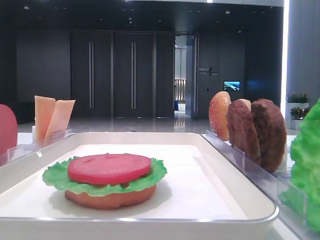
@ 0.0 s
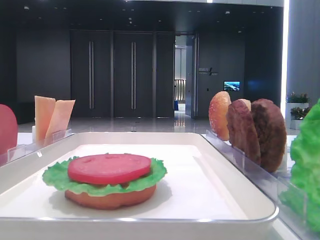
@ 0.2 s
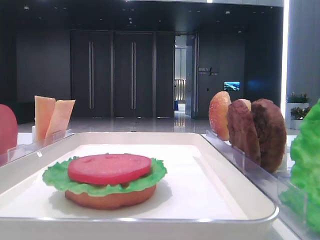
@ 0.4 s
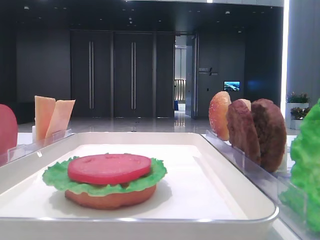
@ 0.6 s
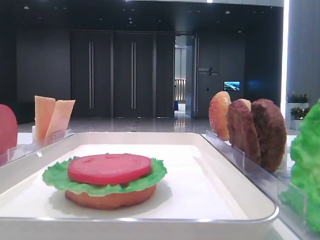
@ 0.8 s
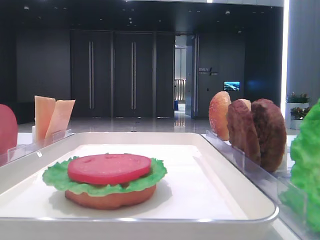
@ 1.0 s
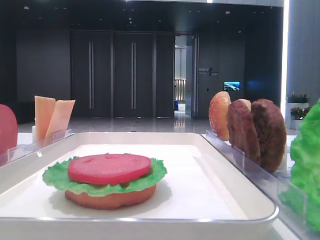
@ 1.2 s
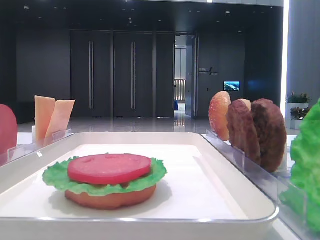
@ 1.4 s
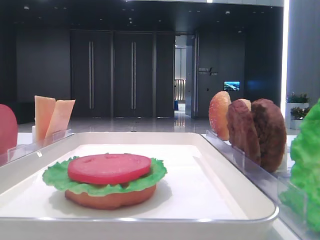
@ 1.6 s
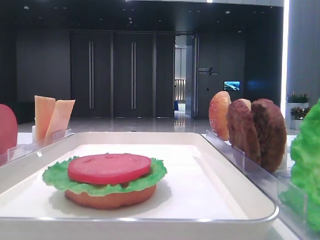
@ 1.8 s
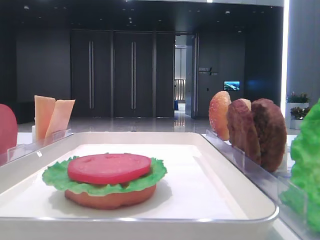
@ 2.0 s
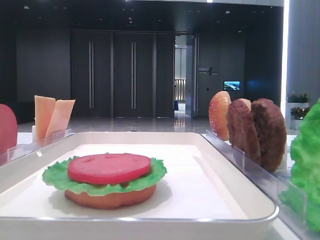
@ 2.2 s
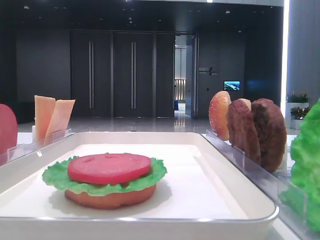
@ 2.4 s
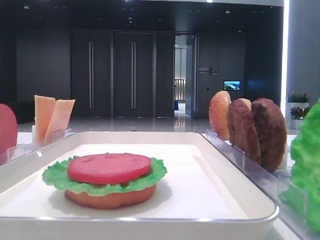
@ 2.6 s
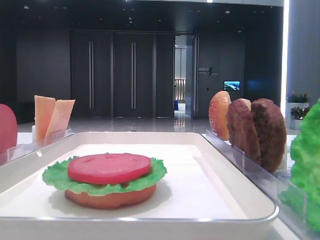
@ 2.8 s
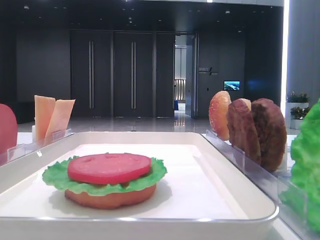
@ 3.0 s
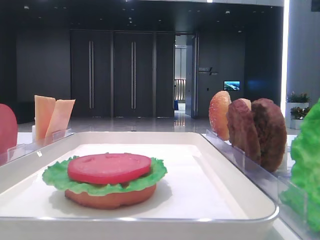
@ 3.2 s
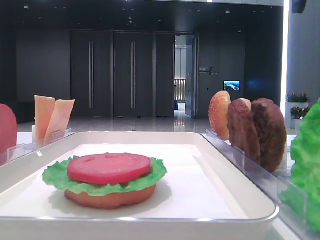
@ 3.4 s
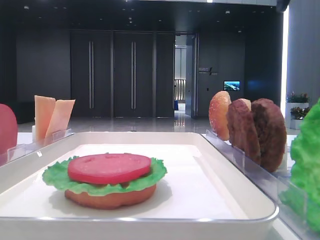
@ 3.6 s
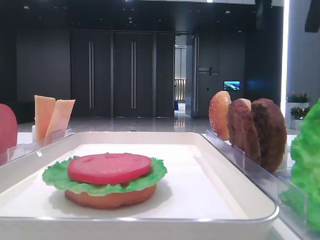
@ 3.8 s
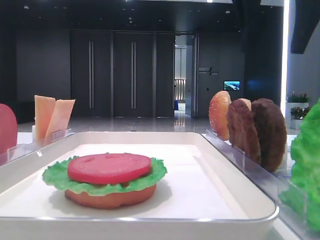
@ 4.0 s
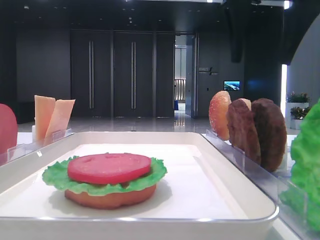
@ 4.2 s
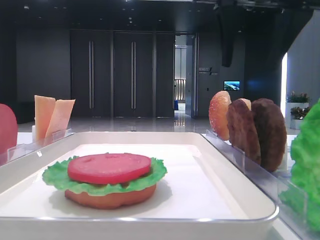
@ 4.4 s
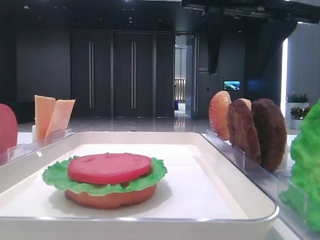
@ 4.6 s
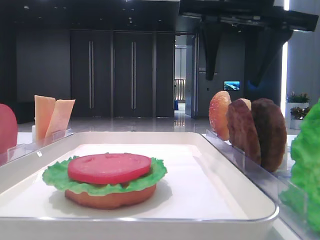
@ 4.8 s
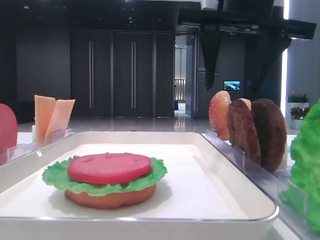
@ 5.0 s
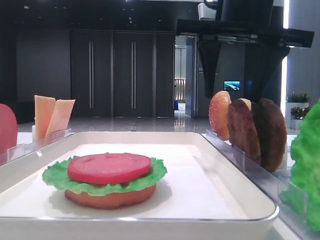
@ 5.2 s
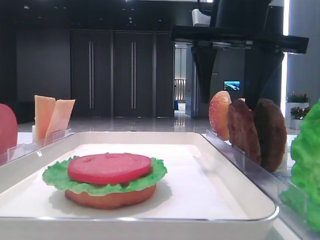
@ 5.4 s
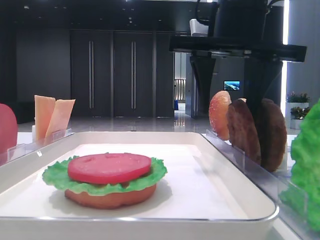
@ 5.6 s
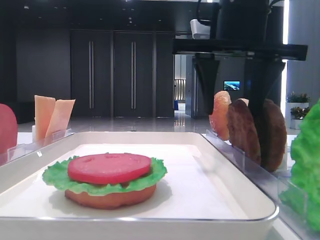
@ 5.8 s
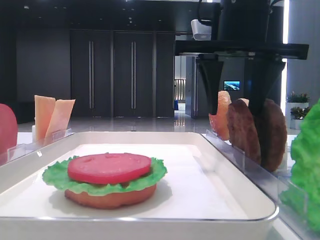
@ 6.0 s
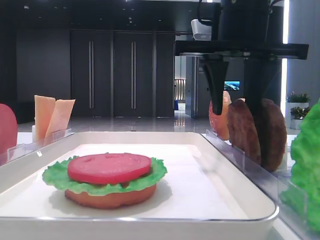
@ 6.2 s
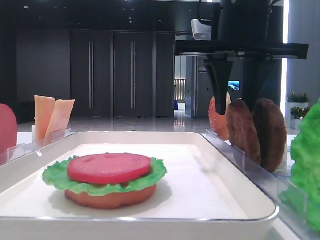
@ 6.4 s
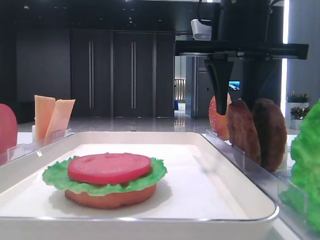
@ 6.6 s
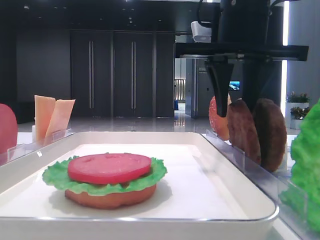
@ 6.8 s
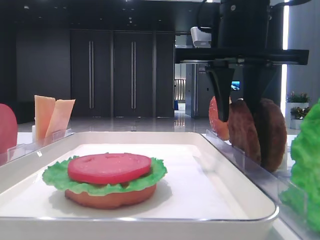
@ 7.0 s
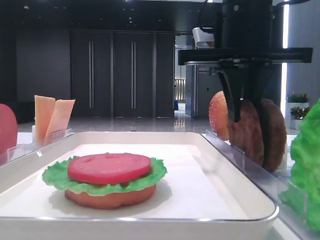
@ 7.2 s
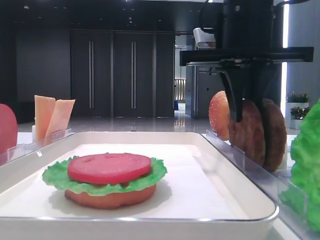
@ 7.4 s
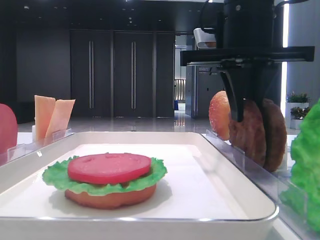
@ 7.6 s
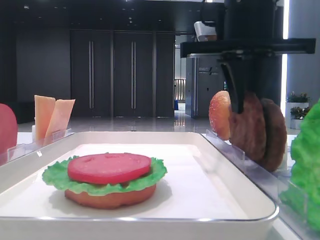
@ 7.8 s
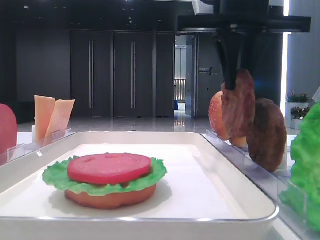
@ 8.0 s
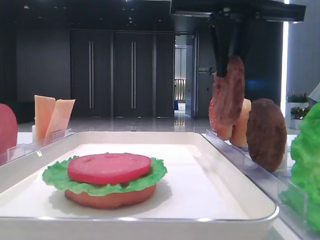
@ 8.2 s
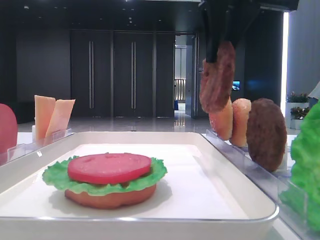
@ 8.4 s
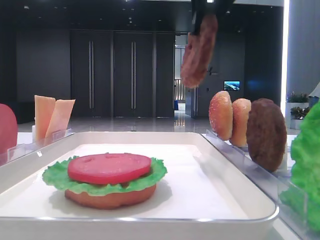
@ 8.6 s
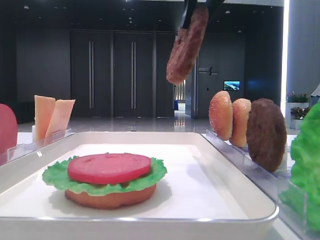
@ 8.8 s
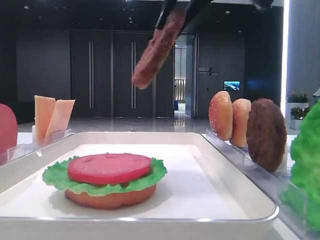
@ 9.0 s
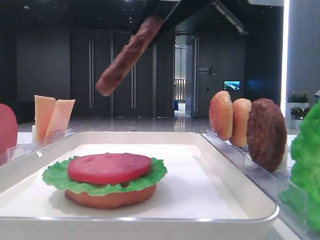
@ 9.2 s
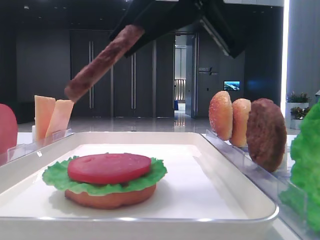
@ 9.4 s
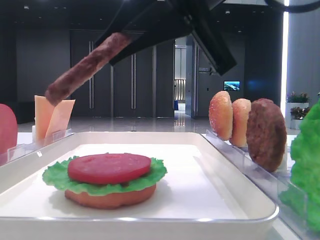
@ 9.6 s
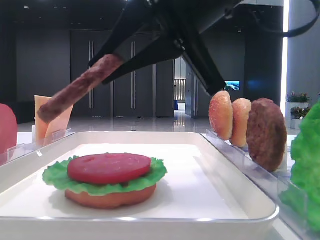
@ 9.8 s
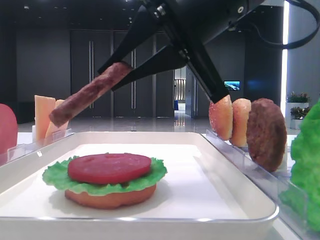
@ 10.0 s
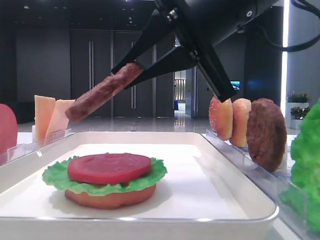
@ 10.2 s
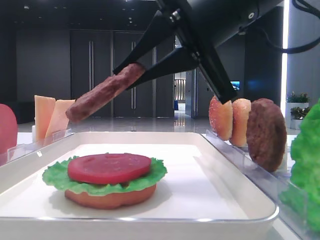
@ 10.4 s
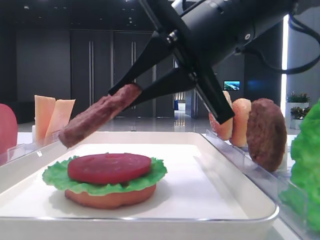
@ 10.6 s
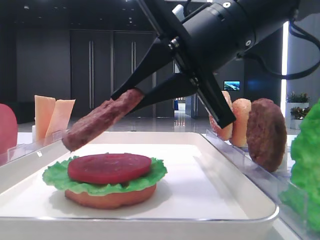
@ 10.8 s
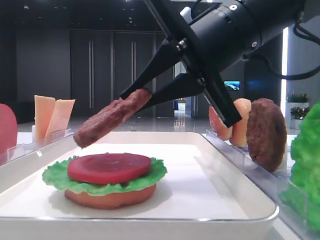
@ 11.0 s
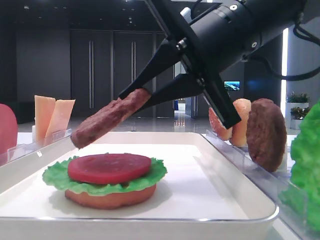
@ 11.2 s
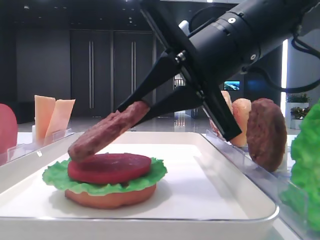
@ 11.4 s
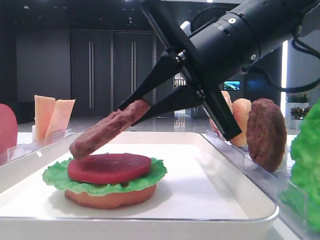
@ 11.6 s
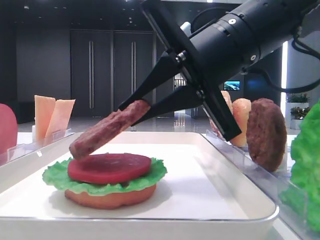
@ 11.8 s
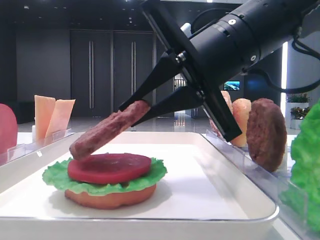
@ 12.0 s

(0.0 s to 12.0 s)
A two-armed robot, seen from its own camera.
Step, 0.0 s - 7.6 s: Grab the patty with the right hand.
3.0 s - 4.4 s: The right gripper goes some 15 cm to the left and downward.
4.4 s - 6.0 s: The right gripper shifts about 5 cm downward.
6.0 s - 7.6 s: The right gripper closes up.
7.6 s - 9.0 s: The right gripper travels upward and backward by some 10 cm.
9.0 s - 10.4 s: The right gripper is displaced downward by approximately 10 cm.
10.4 s - 12.0 s: The grippers move only a little.

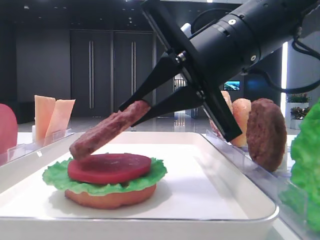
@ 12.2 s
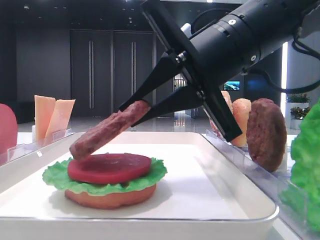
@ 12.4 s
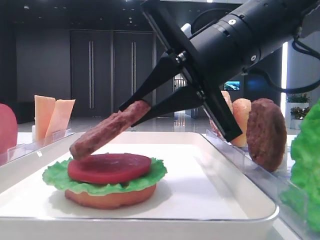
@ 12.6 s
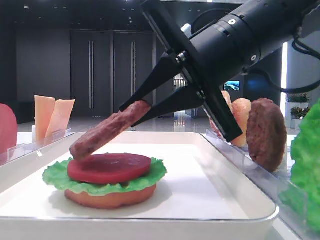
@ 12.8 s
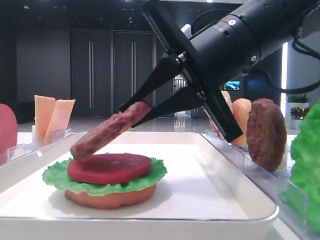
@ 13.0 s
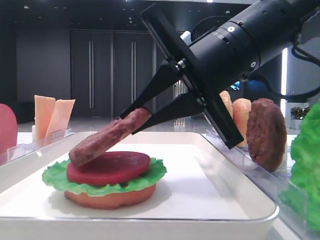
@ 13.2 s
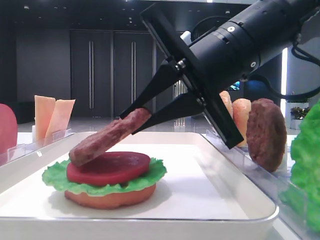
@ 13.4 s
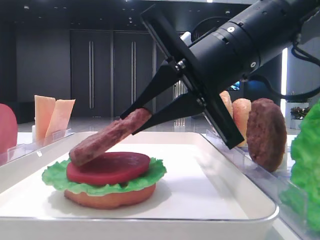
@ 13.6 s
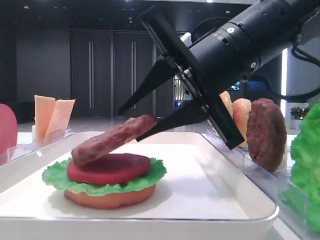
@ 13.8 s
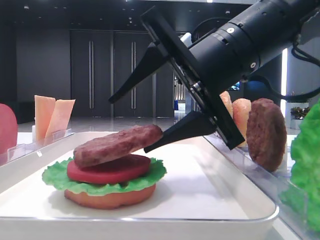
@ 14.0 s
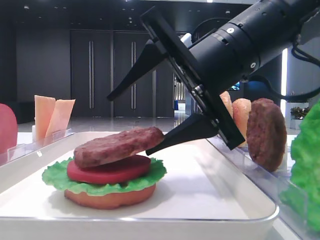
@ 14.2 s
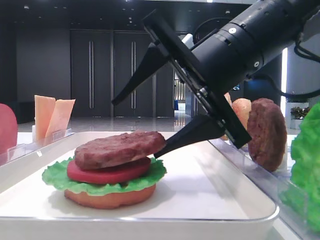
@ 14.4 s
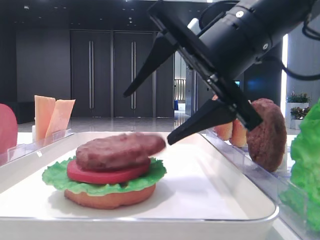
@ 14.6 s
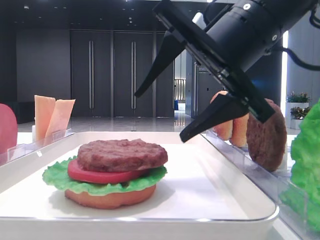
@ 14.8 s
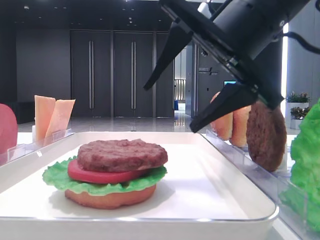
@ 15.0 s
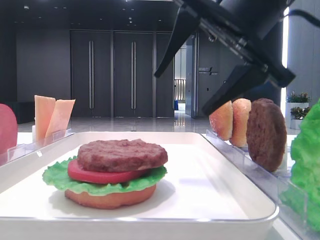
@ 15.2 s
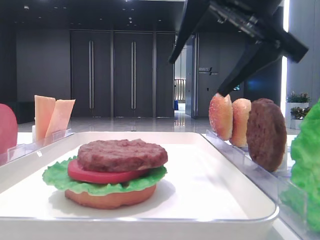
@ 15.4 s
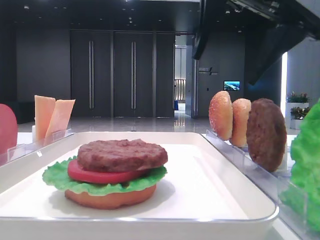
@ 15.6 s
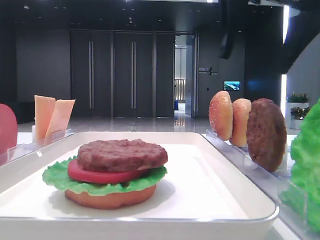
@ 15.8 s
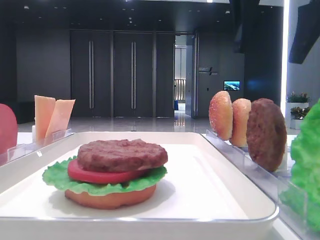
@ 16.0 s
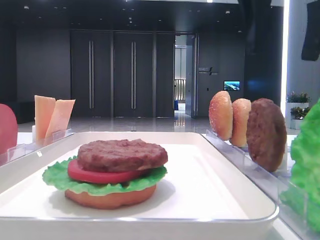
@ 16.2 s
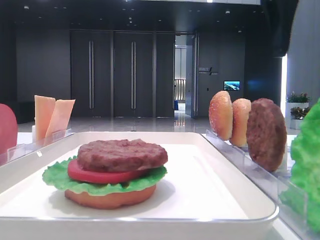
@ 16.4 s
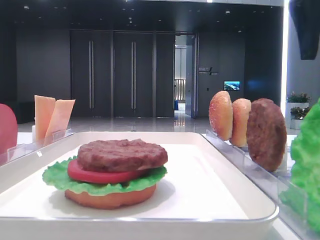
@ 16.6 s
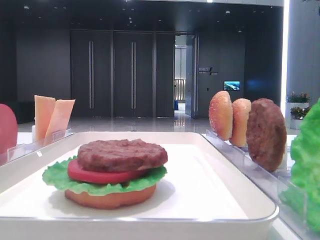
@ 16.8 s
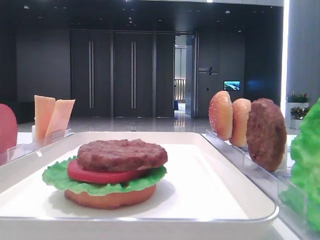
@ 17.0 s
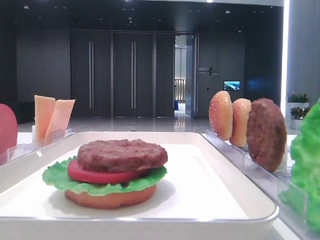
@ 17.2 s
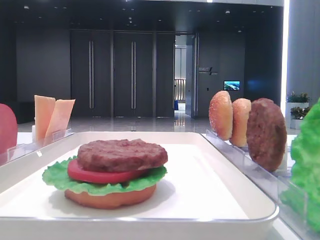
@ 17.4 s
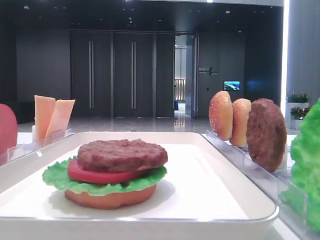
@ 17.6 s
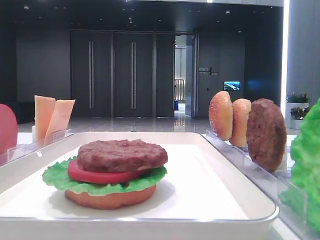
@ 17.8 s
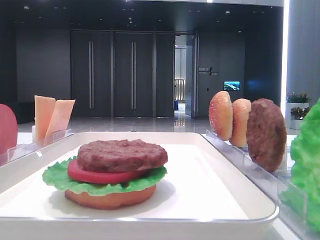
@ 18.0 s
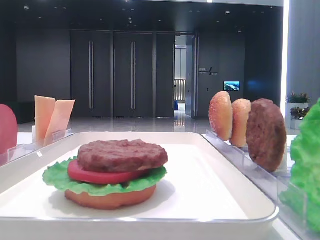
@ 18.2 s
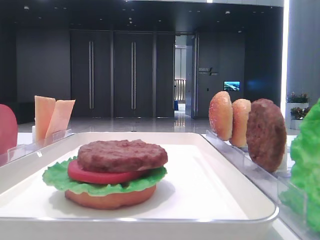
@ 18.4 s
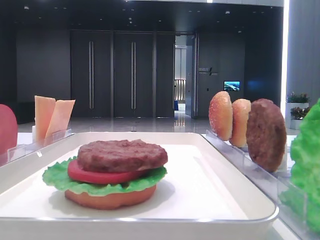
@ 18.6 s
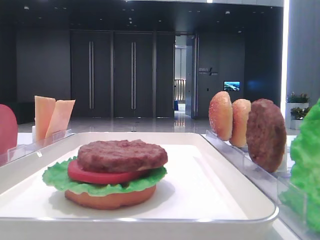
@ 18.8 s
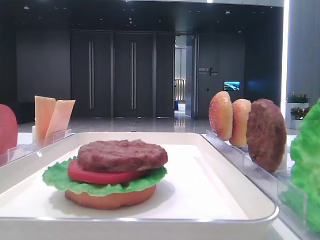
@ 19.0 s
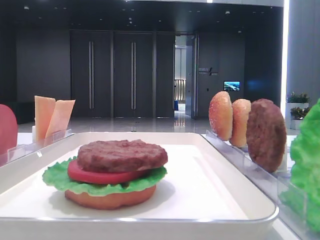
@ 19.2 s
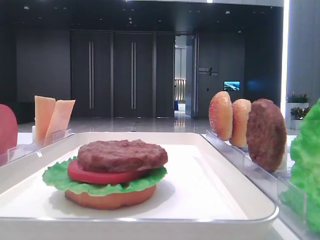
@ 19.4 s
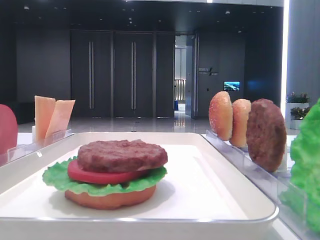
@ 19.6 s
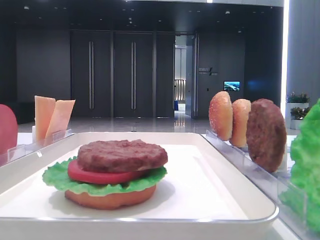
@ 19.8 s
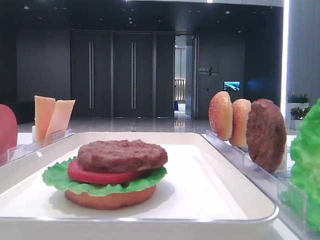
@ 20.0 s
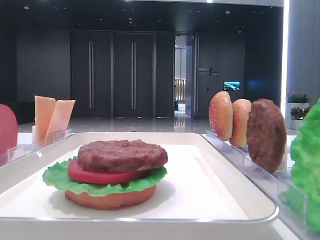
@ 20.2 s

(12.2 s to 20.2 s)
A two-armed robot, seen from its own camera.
Step, 12.2 s - 14.8 s: Place the patty on the tomato slice with the right hand.
12.2 s - 13.8 s: Both grippers stay put.
13.8 s - 15.4 s: The right gripper is displaced upward by approximately 10 cm, and opens its fingers.
15.4 s - 17.0 s: The right gripper goes approximately 15 cm to the right.

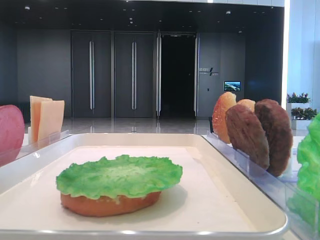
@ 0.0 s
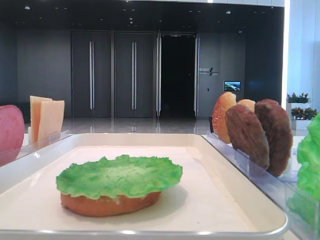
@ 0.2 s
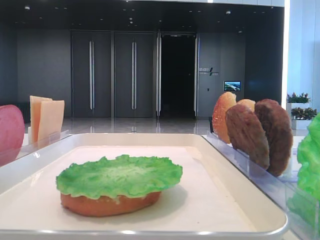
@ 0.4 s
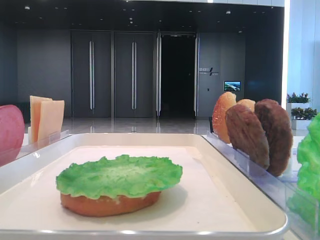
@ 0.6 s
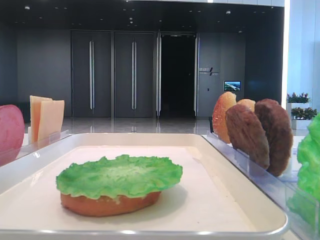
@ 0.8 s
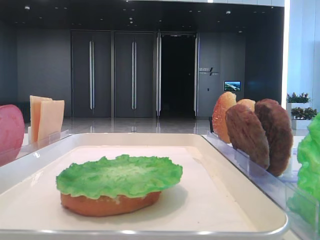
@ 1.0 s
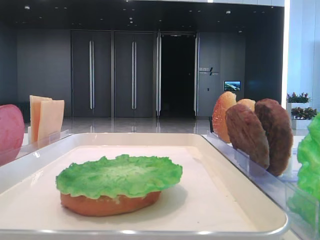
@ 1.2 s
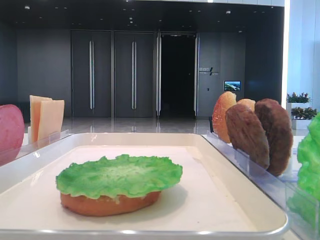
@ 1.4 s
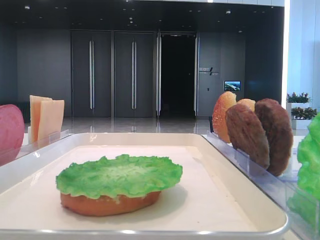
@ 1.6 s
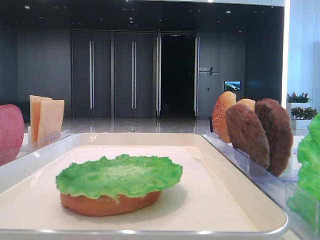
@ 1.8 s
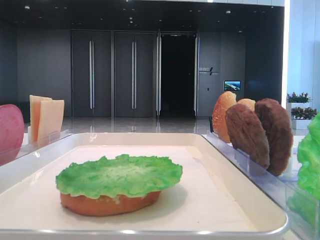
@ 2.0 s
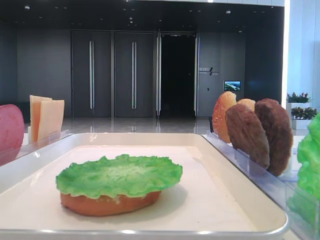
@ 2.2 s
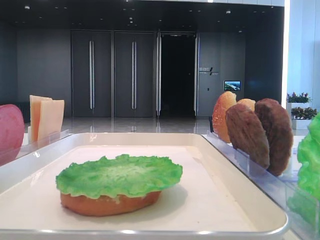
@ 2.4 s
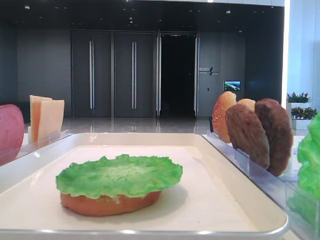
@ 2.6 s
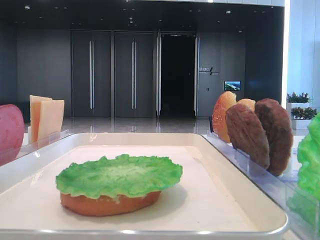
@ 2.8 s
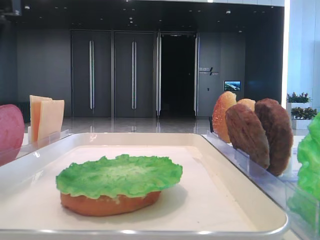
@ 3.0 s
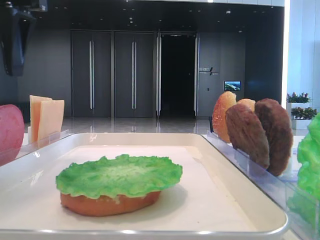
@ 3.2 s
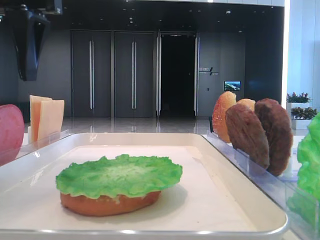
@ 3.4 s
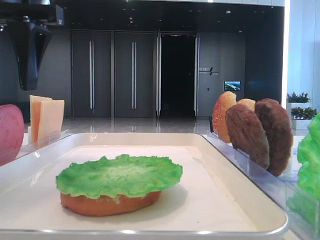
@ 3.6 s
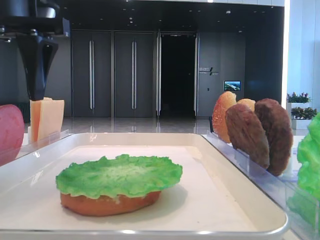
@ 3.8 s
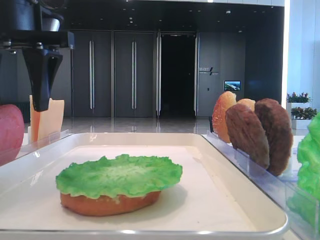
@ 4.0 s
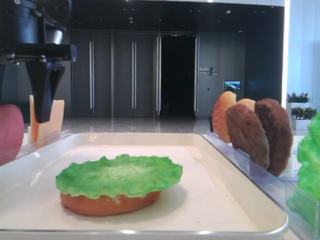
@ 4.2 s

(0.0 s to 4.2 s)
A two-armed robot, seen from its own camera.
2.8 s - 4.2 s: The left gripper travels to the right and downward by roughly 10 cm.
